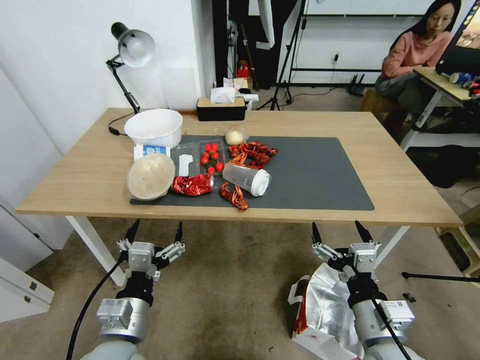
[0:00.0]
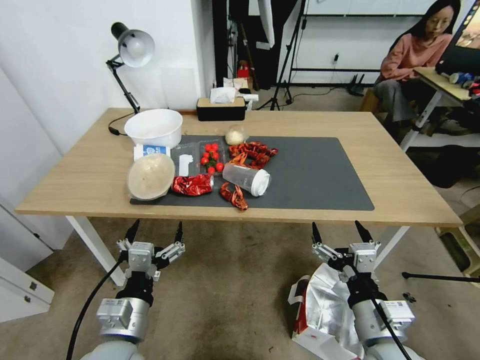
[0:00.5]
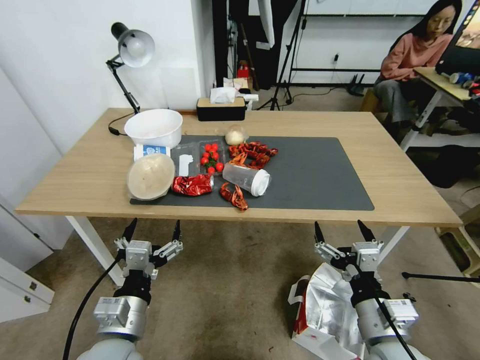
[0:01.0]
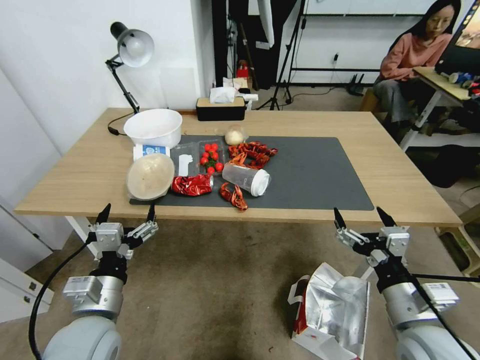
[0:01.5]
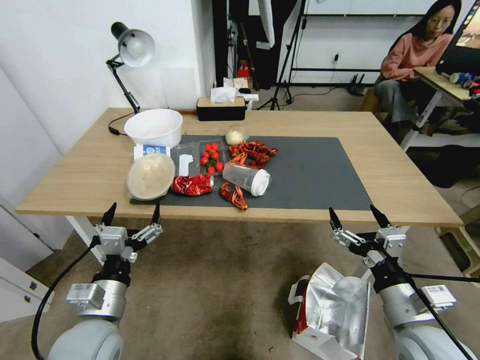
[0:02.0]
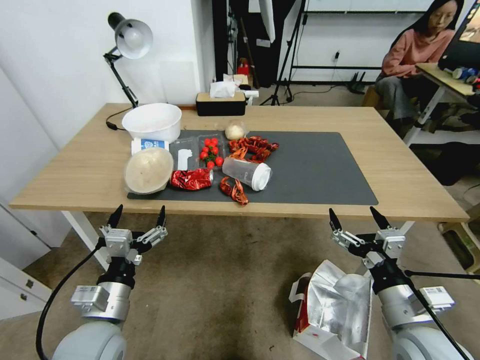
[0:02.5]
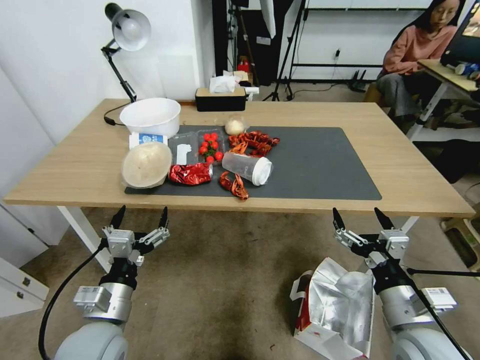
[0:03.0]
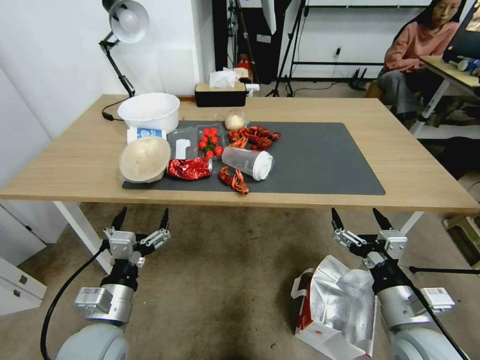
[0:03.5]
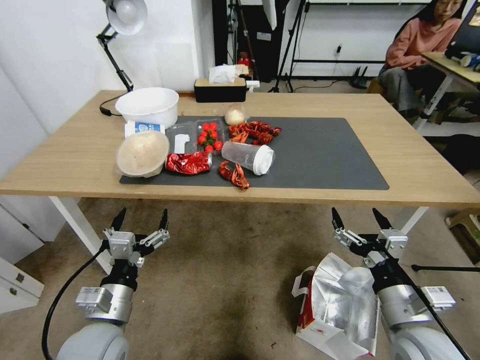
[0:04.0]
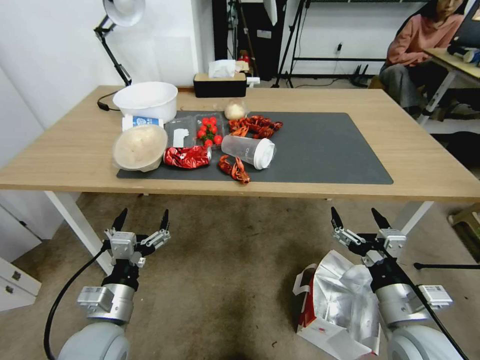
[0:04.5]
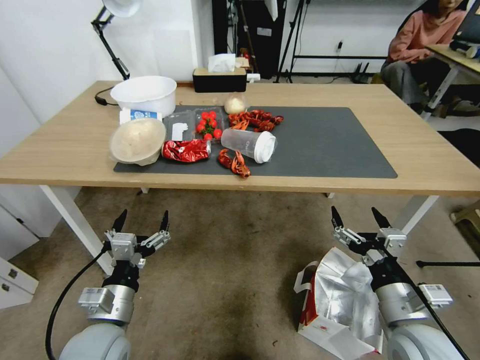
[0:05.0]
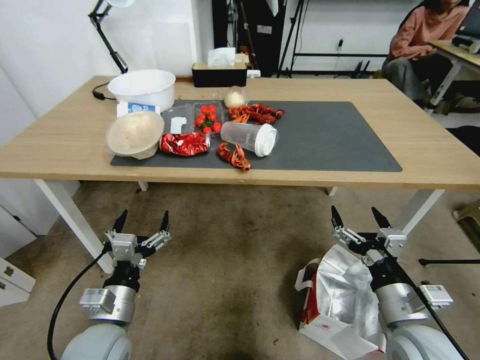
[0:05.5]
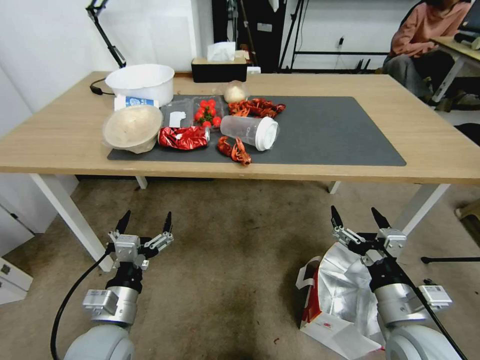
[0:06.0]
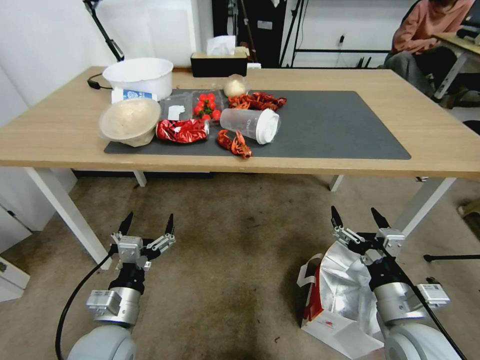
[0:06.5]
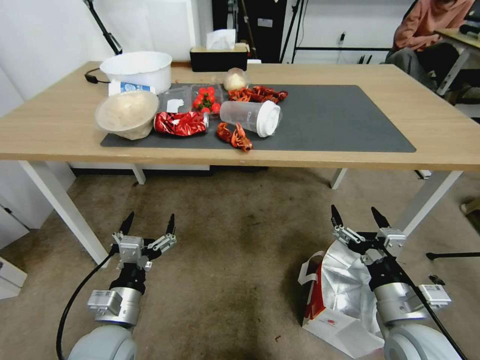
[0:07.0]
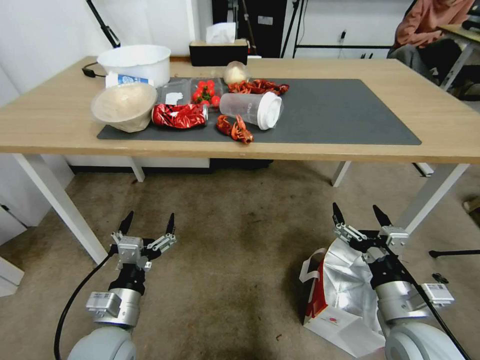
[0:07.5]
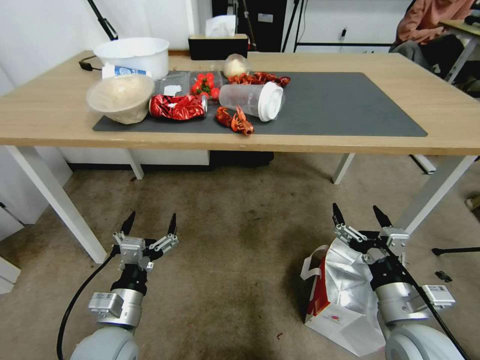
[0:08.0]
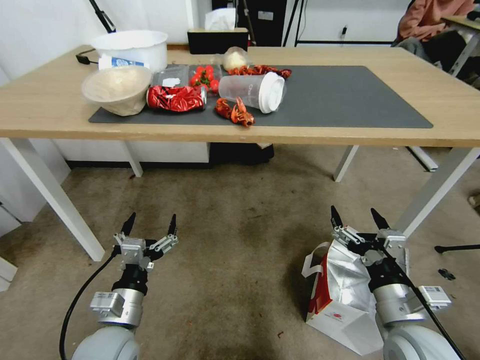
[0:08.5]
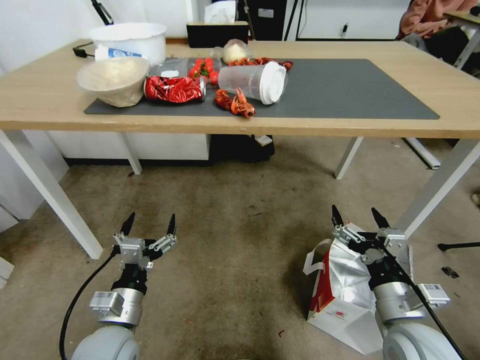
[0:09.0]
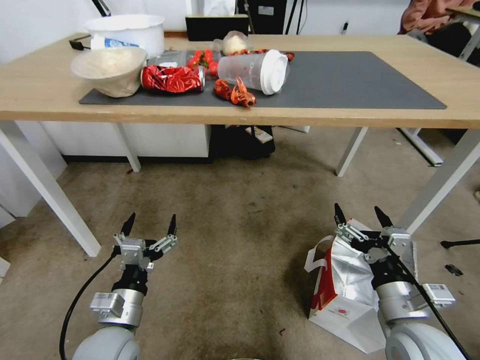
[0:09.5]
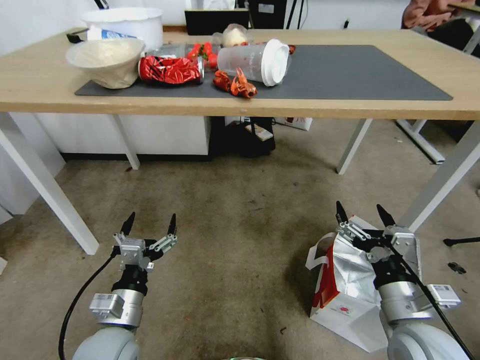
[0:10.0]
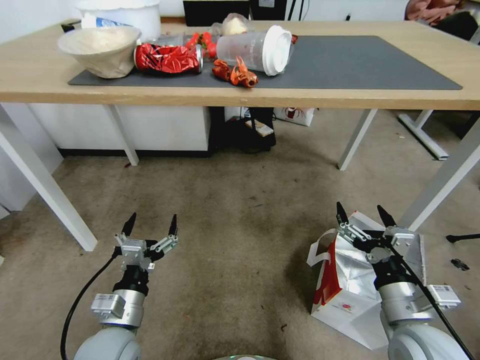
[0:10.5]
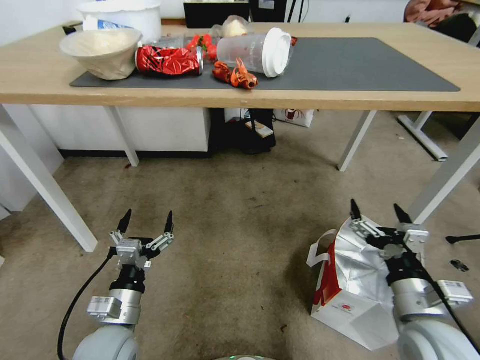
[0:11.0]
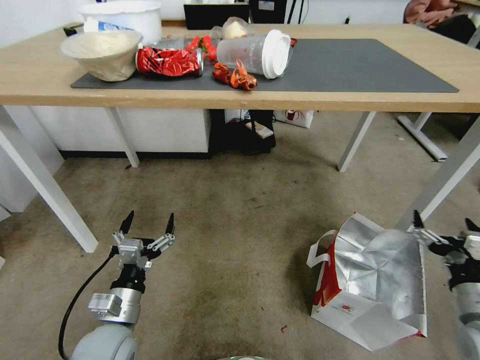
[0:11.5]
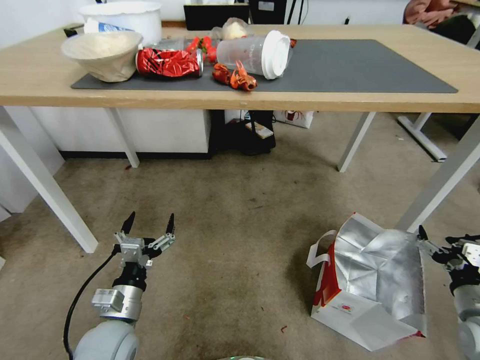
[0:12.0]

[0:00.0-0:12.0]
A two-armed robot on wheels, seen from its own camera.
Task of the whole recording: Pick up the food delivery bag from the floor and place it on the table.
0:10.0 to 0:12.0: The right gripper heads to the right, covering about 20 cm.

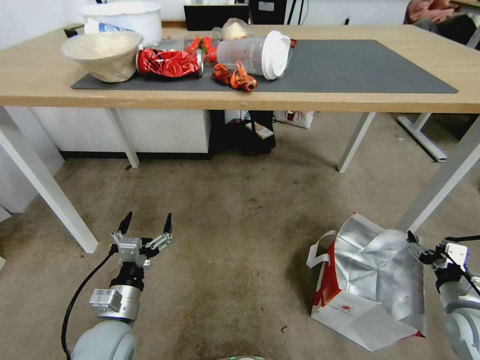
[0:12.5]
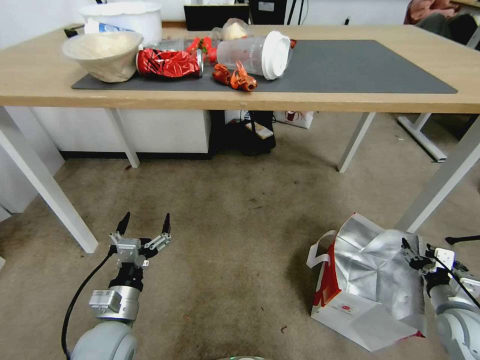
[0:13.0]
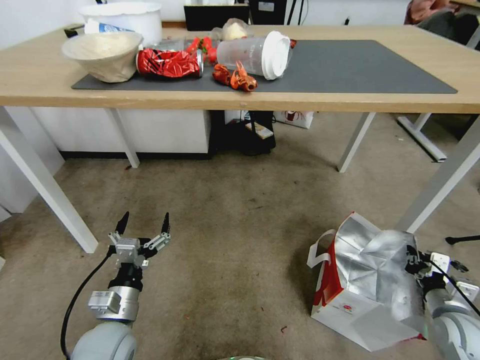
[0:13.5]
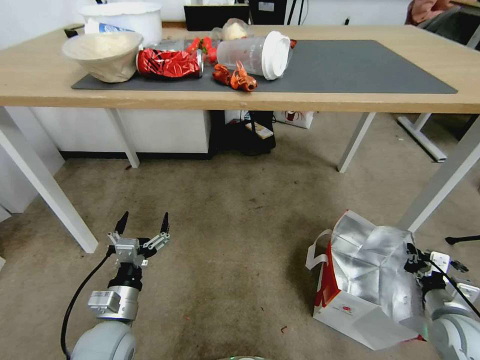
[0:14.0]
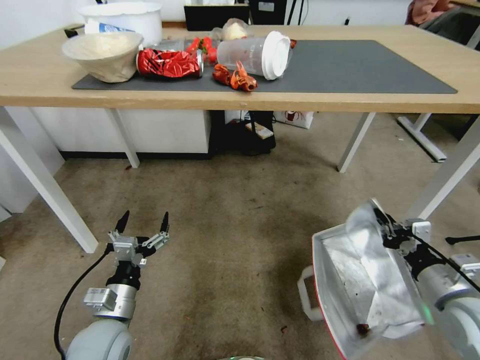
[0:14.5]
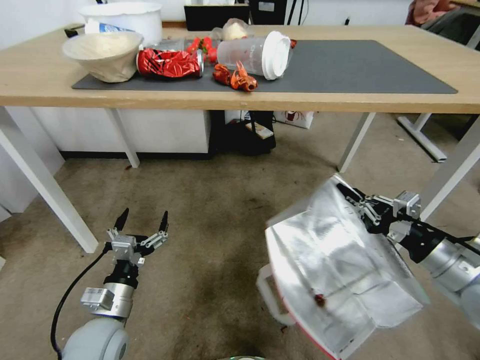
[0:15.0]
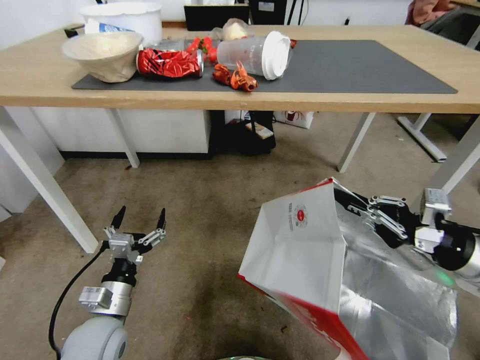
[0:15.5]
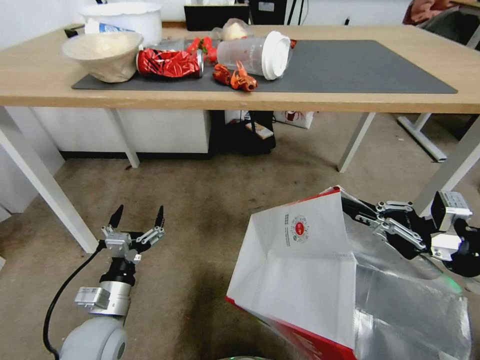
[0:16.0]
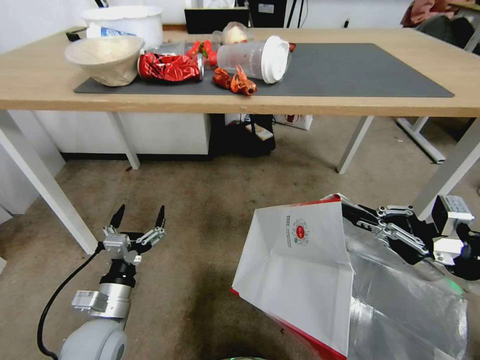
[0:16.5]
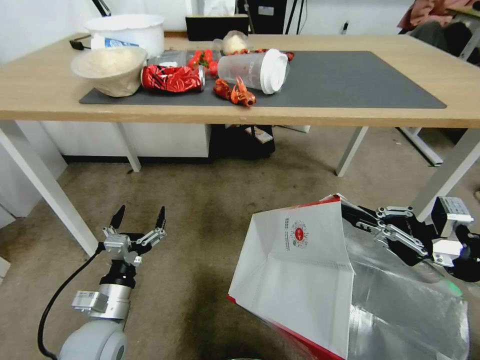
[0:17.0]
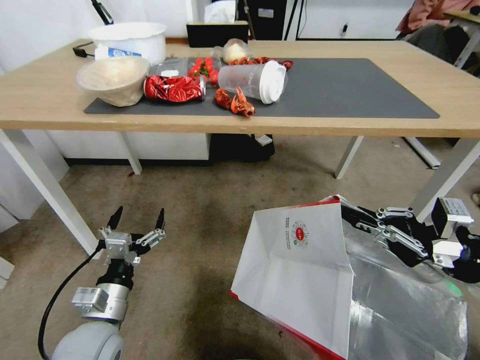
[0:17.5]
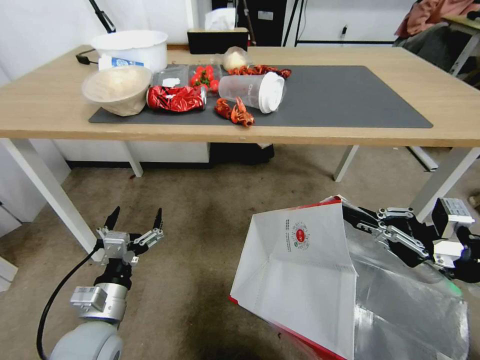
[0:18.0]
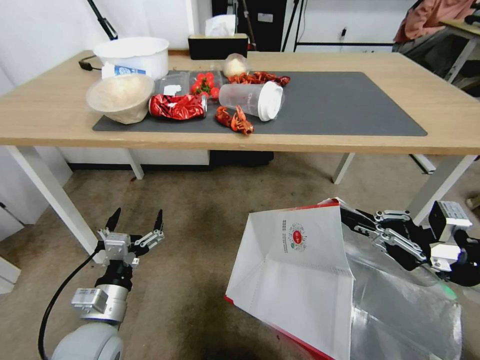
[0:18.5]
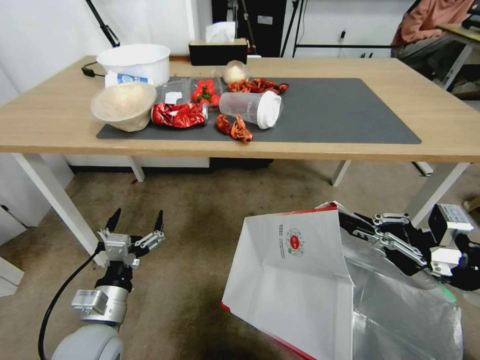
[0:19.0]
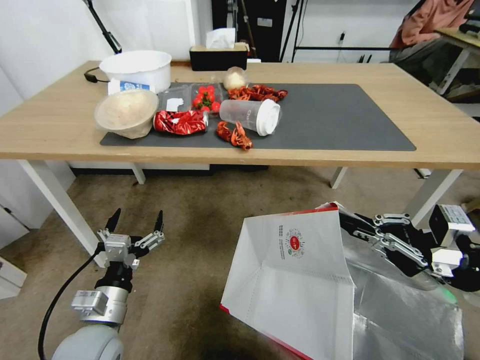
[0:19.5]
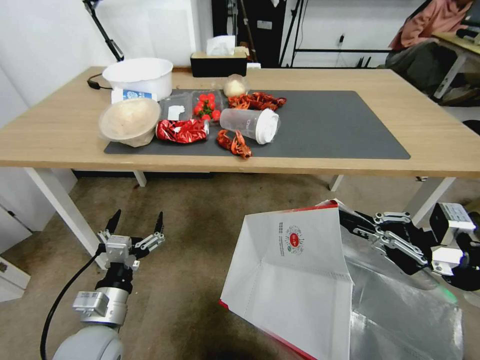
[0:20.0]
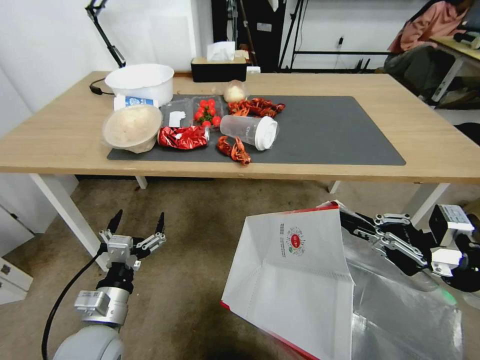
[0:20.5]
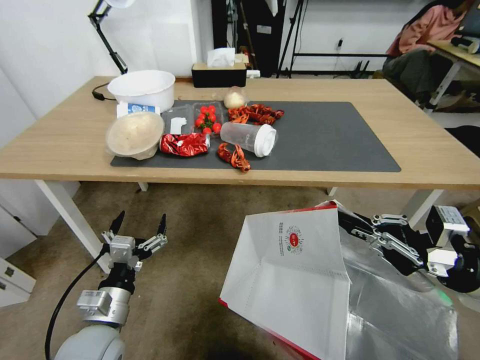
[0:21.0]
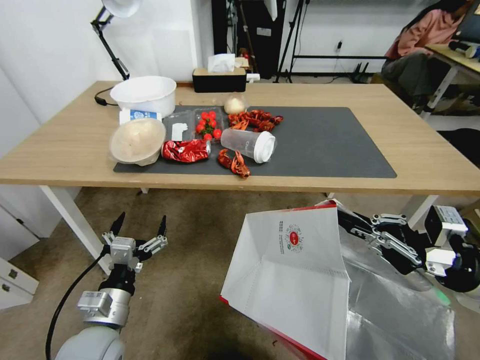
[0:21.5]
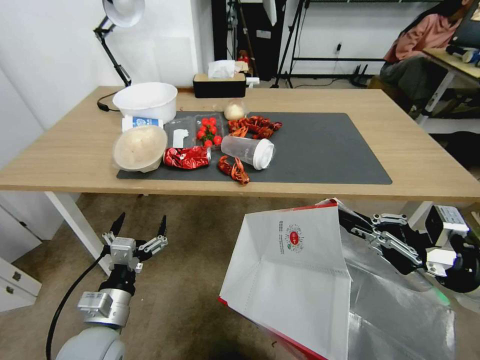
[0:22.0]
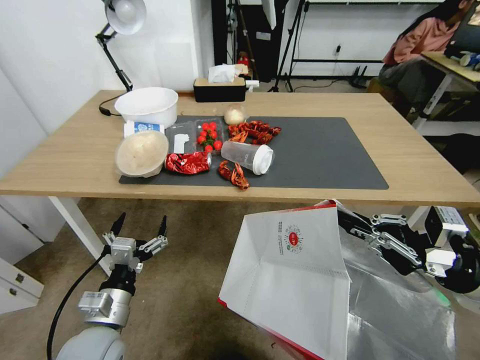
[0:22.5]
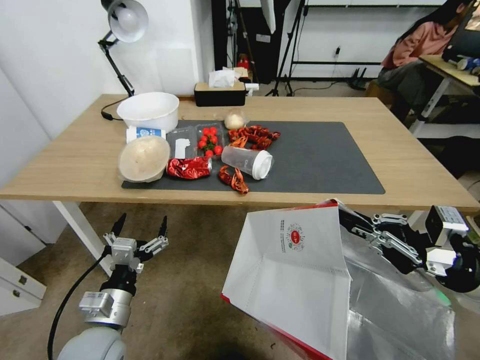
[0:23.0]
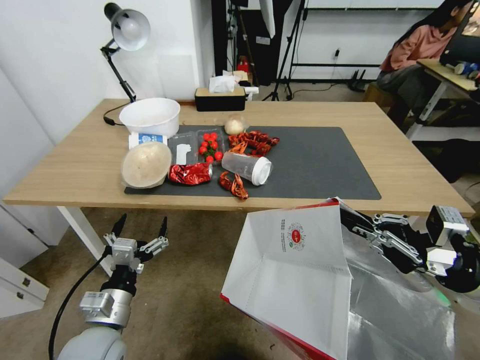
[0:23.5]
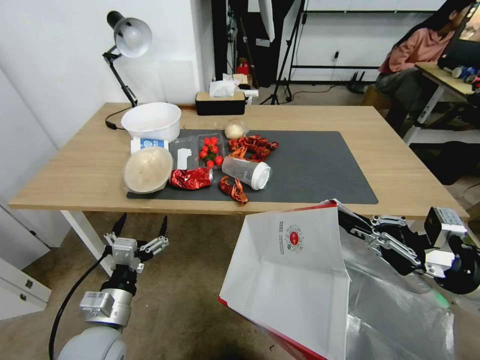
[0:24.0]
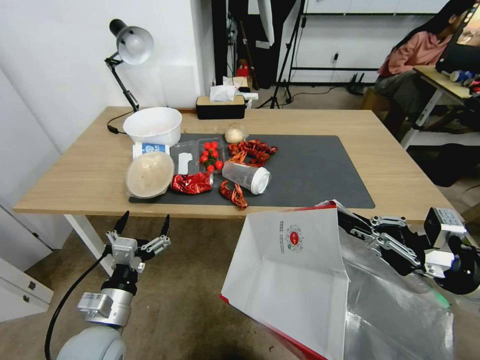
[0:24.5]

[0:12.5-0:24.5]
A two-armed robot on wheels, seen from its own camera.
Task of the whole recording: Pick up the food delivery bag from the floor and place it on the table.
0:12.5 to 0:14.5: The right gripper is displaced upward and to the left by about 10 cm, and closes its fingers.
0:14.5 to 0:16.5: The right gripper travels upward by approximately 15 cm.

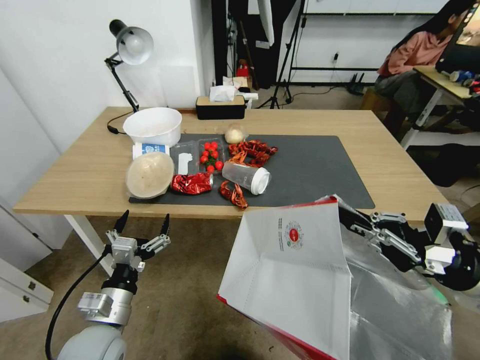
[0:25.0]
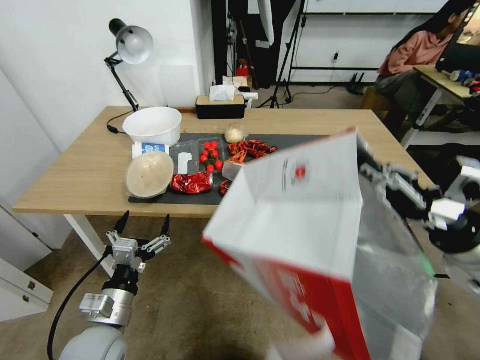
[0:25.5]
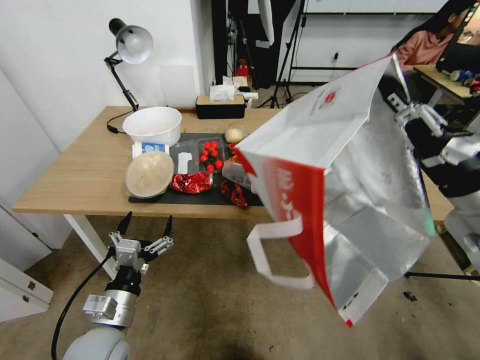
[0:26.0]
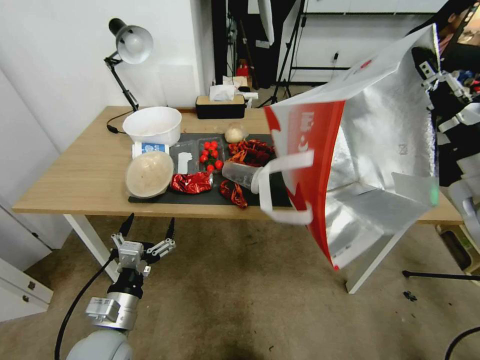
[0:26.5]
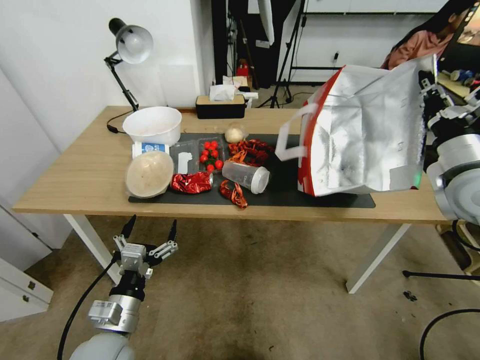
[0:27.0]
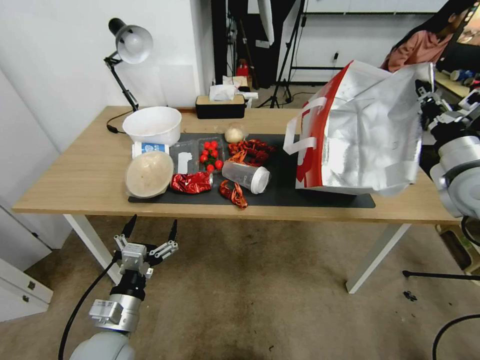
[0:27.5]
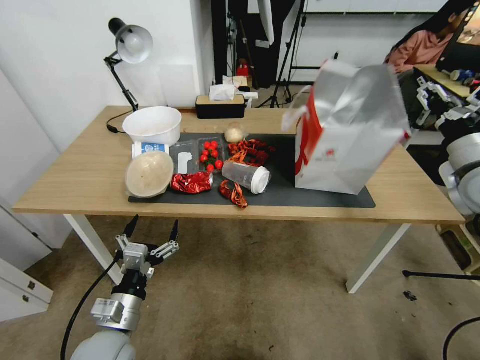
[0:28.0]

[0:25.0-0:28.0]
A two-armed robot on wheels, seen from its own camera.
Task of the whole recording: Pick up the food delivery bag from the floor and place it on the table.
0:25.0 to 0:26.5: The right gripper heads upward and forward, covering roughly 10 cm.
0:26.5 to 0:28.0: The right gripper goes approximately 10 cm forward and to the right, and opens its fingers.
